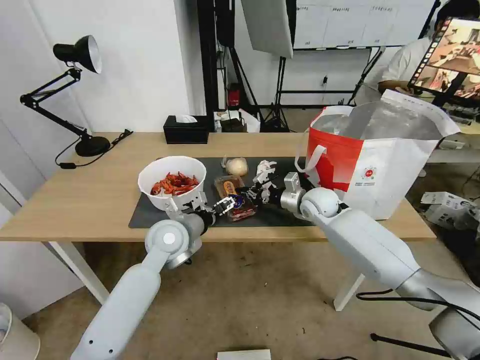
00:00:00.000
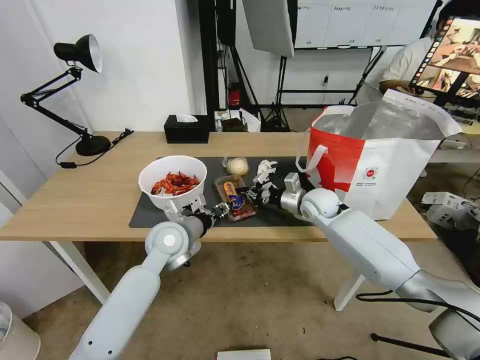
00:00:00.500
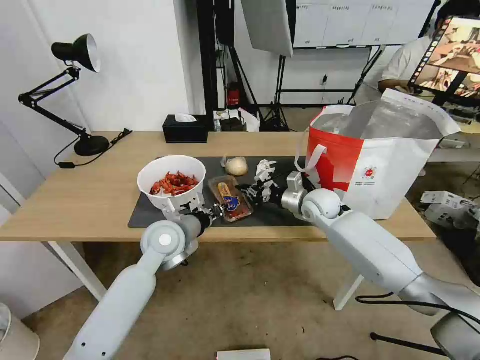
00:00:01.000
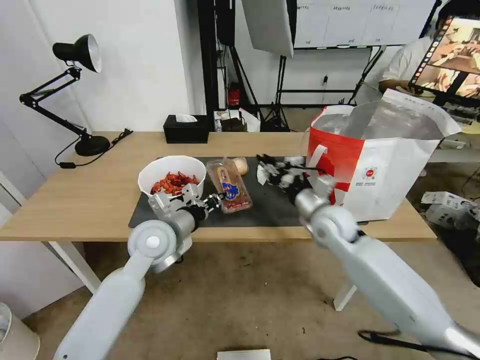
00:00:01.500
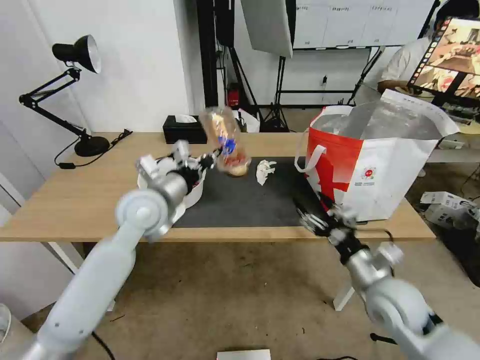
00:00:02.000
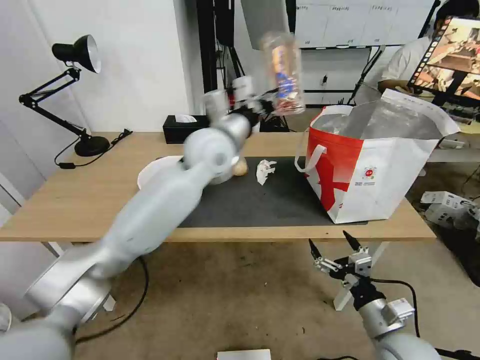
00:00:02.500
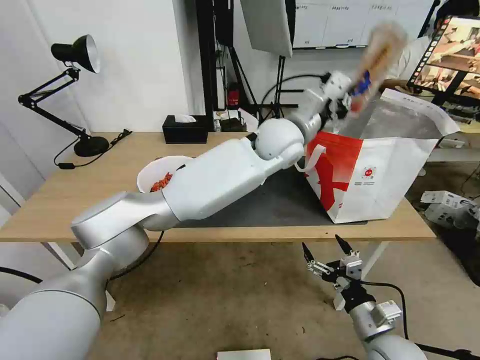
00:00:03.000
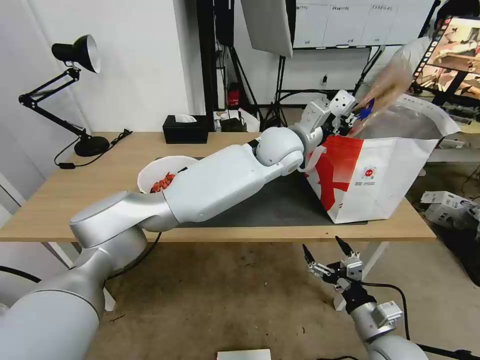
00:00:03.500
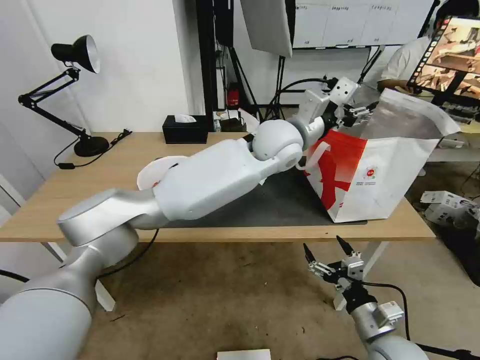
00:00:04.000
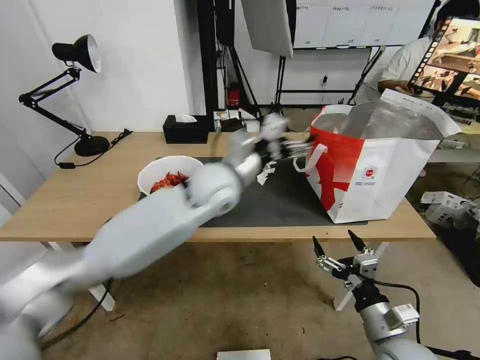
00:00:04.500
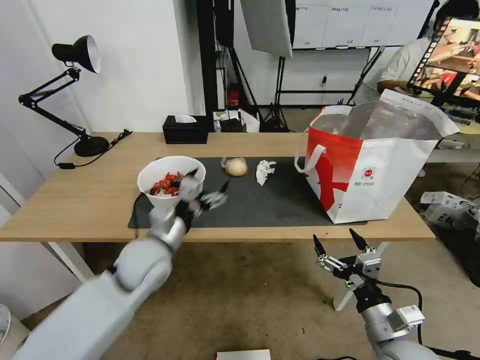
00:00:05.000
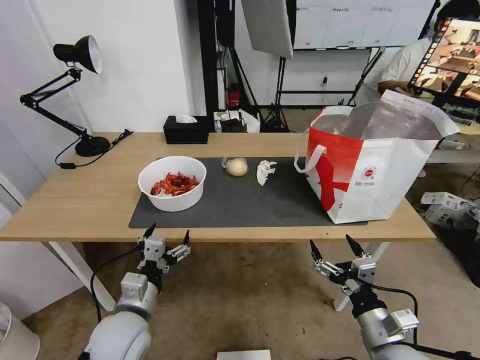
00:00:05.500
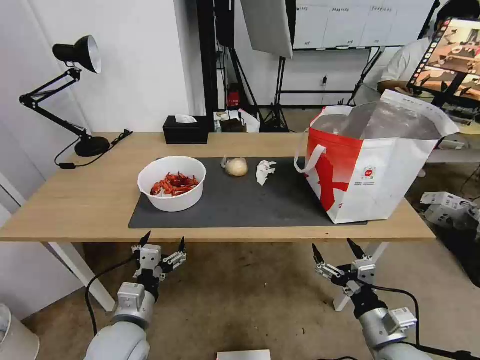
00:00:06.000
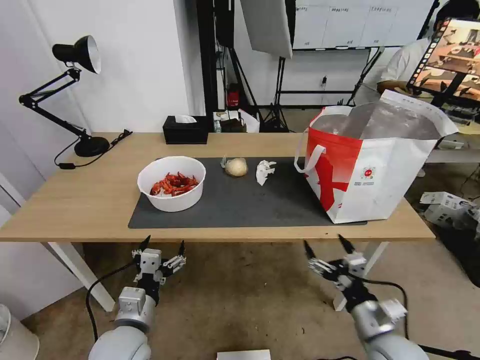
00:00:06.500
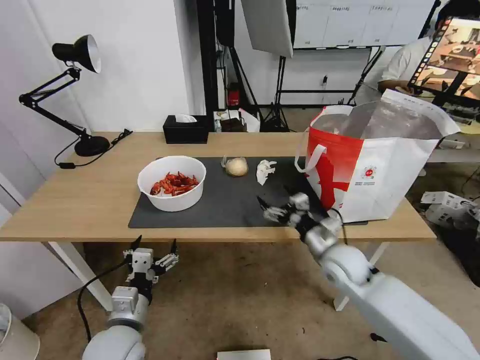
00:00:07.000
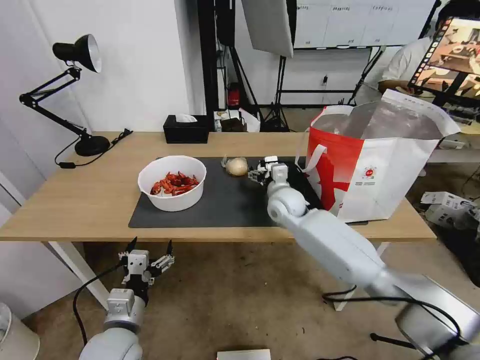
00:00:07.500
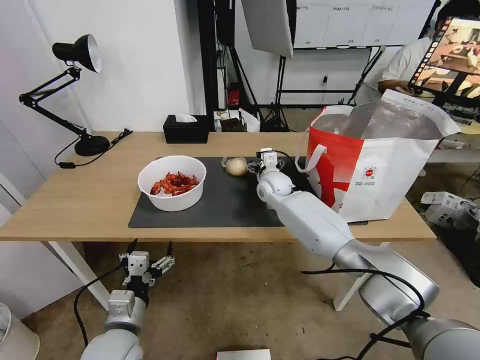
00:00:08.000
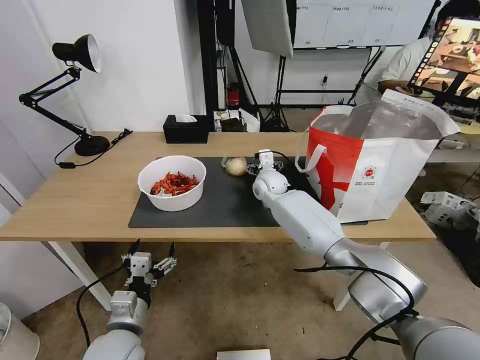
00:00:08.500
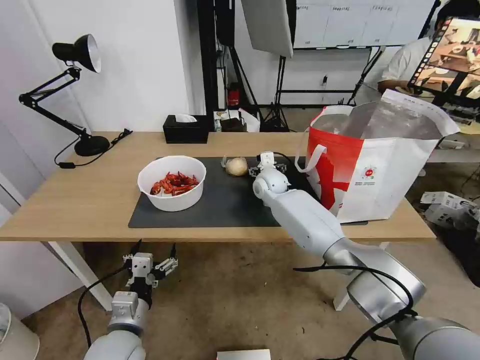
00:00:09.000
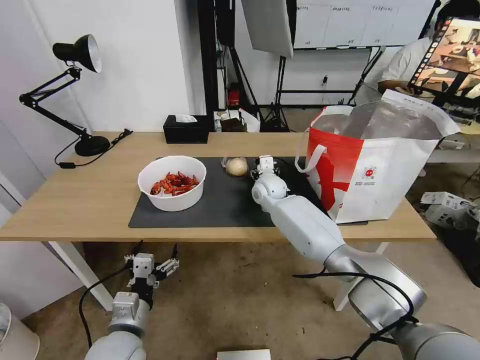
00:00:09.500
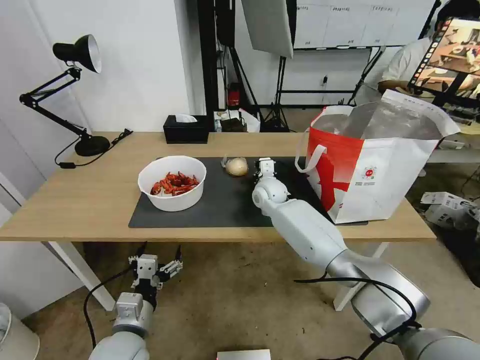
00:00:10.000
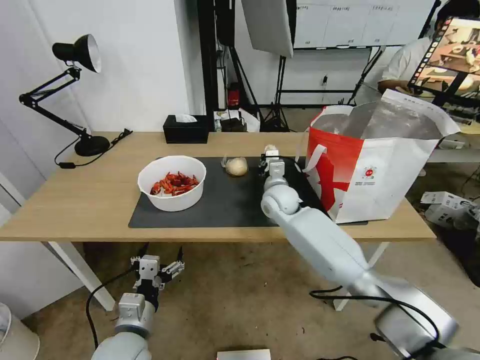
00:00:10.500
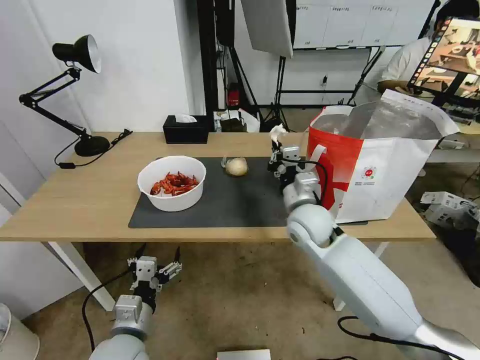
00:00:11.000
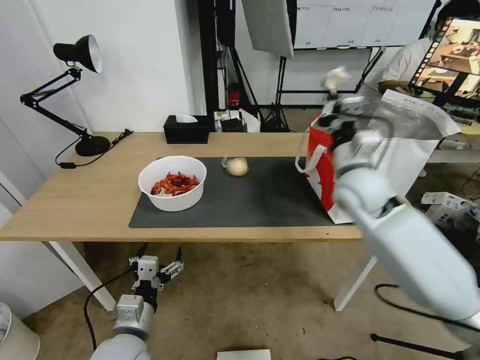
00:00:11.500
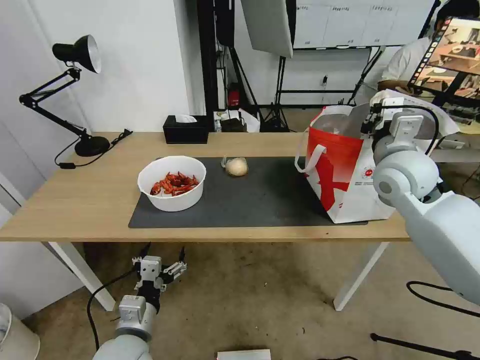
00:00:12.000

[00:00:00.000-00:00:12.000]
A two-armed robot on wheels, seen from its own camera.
Task of the whole recording: Pick up the trash from the table and place it into the takeout bag.
00:00:00.000 to 00:00:02.000: The left gripper goes approximately 10 cm upward, and closes its fingers, while the right gripper travels backward by about 25 cm, and opens.
00:00:02.000 to 00:00:04.000: The right gripper is displaced backward and downward by some 10 cm. The left gripper moves to the right, approximately 25 cm, and opens its fingers.
00:00:04.000 to 00:00:06.000: The left gripper travels backward, to the left and downward by roughly 50 cm.
00:00:06.000 to 00:00:08.000: The right gripper shifts about 50 cm forward and to the left.
00:00:08.000 to 00:00:10.000: The right gripper closes up.
00:00:10.000 to 00:00:12.000: The right gripper shifts roughly 30 cm to the right, upward and backward.

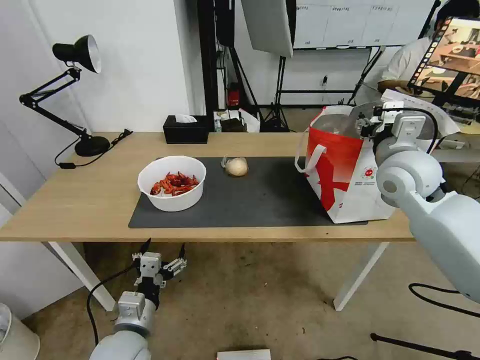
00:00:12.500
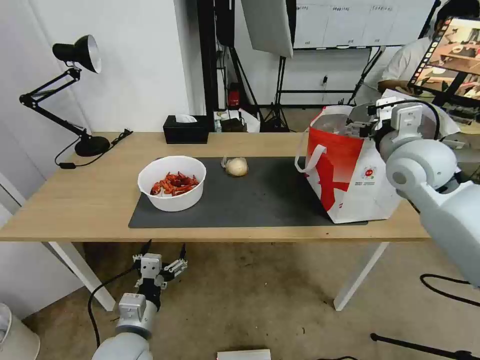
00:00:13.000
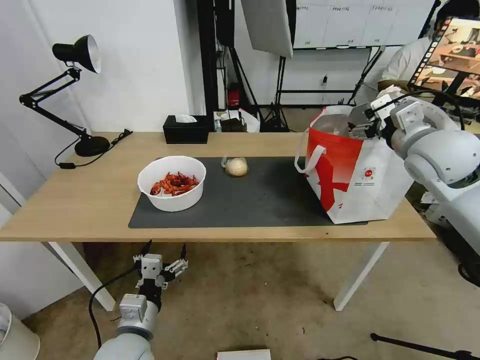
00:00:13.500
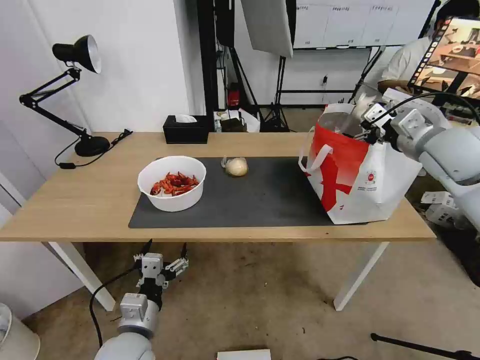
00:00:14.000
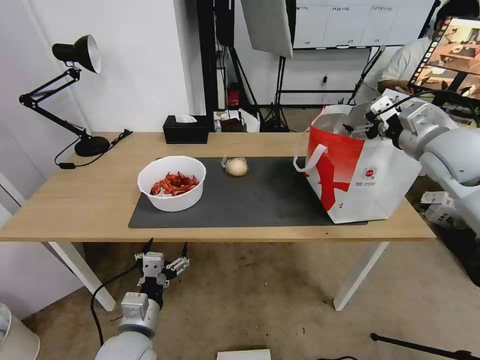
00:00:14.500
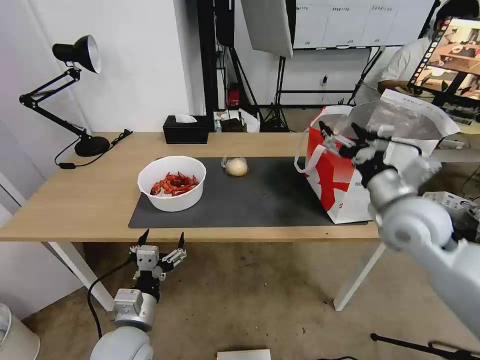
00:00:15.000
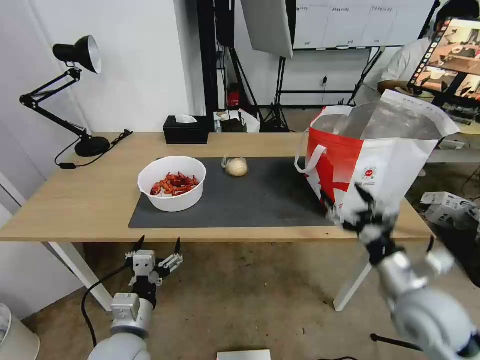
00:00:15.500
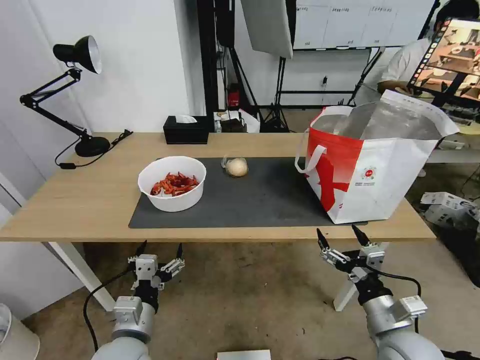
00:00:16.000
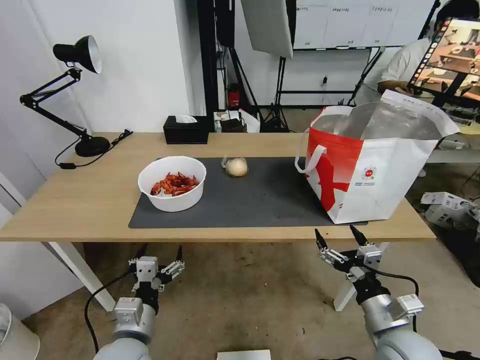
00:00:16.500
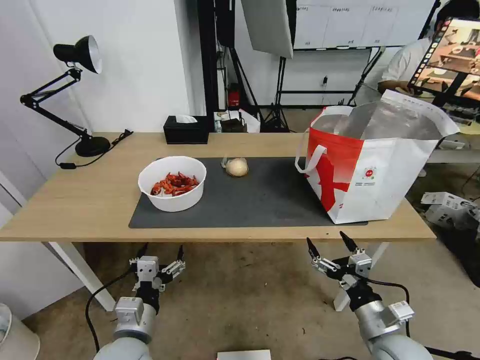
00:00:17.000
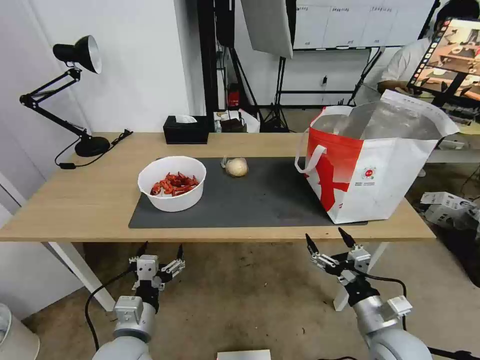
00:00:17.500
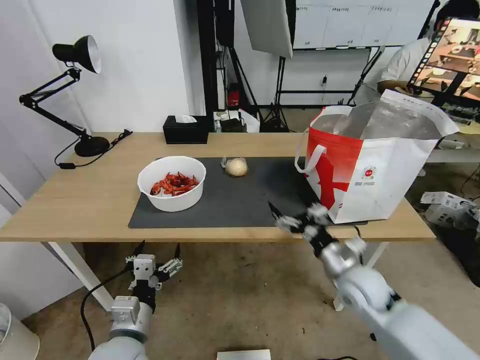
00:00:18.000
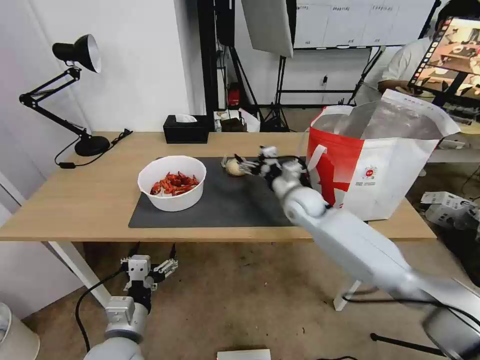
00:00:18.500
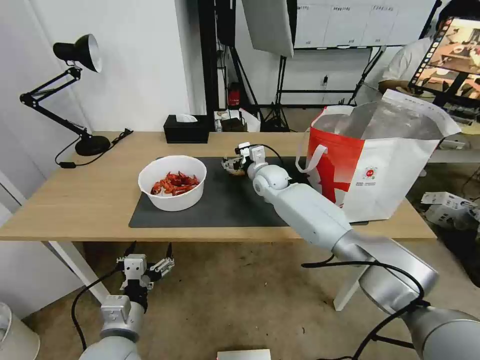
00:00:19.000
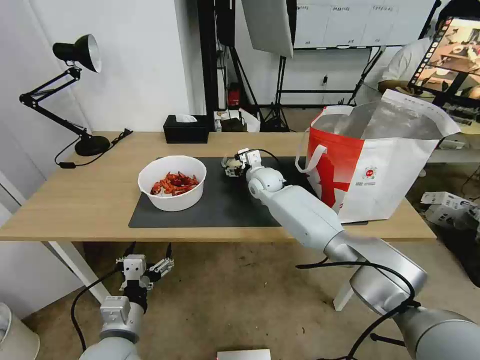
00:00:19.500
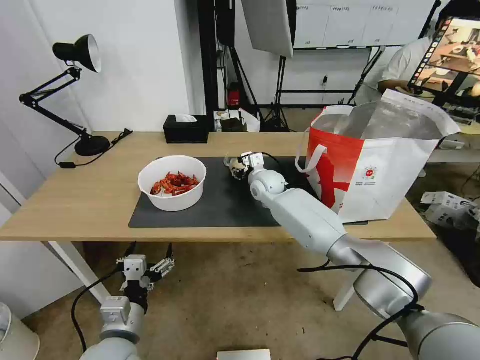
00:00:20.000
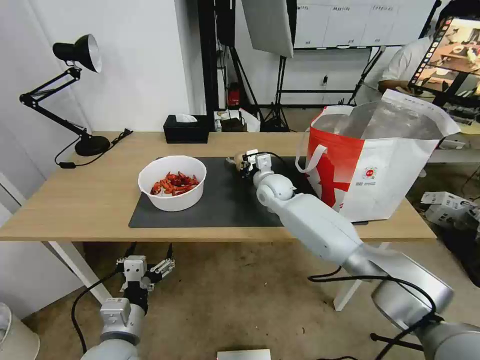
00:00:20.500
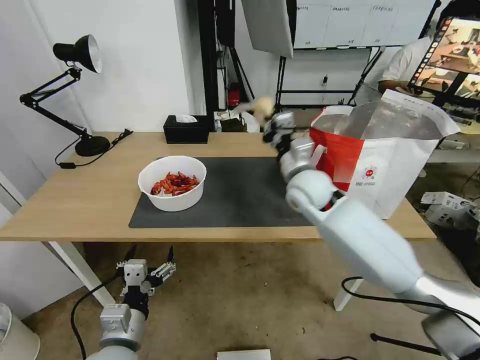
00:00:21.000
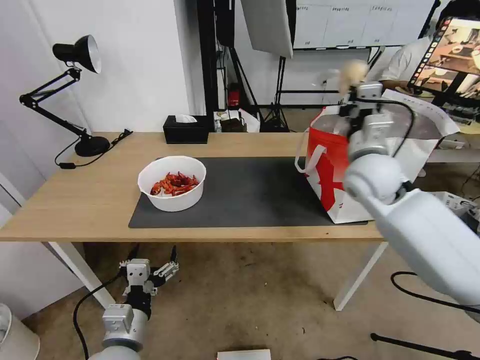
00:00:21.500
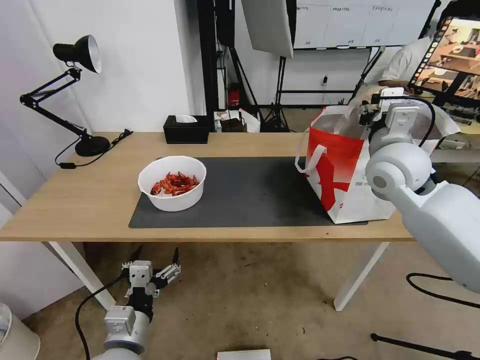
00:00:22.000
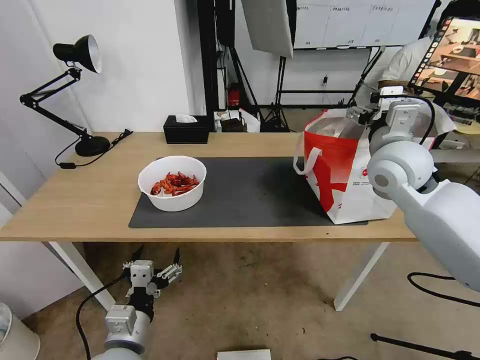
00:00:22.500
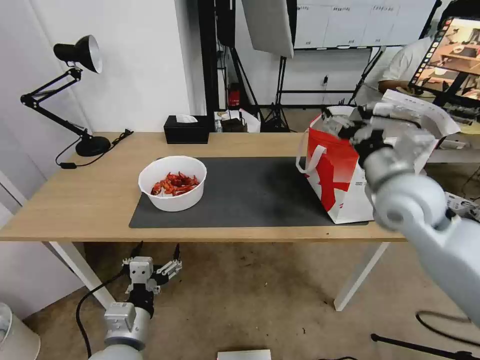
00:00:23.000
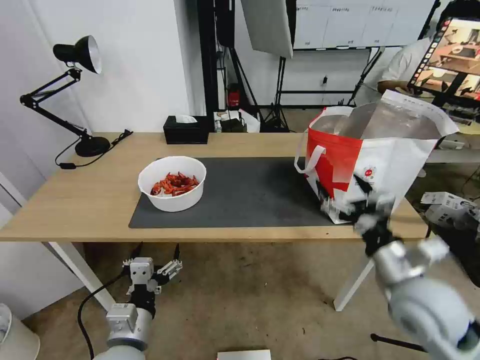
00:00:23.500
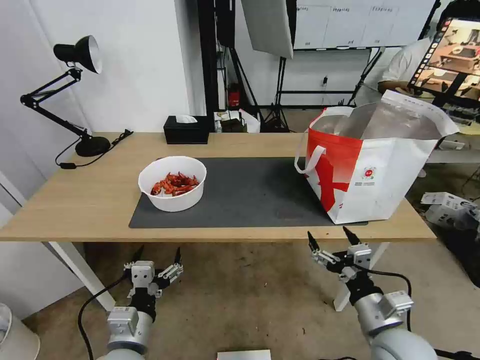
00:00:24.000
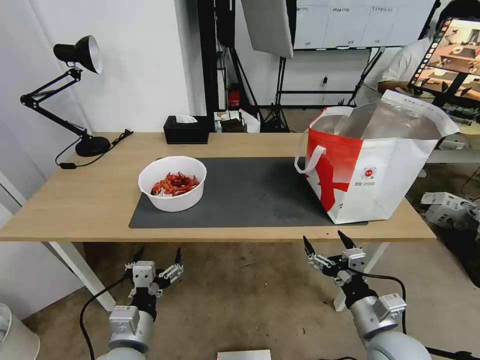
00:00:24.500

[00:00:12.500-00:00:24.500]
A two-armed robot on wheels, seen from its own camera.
Task of the whole recording: Pick up the trash from the table and place it into the takeout bag.
00:00:12.500 to 00:00:14.500: The right gripper moves to the right, some 5 cm, and opens.
00:00:14.500 to 00:00:16.500: The right gripper moves downward and backward, some 35 cm.
00:00:16.500 to 00:00:18.500: The right gripper travels forward and to the left by some 35 cm.
00:00:18.500 to 00:00:20.500: The right gripper goes roughly 10 cm to the left and forward, and closes.
00:00:20.500 to 00:00:22.500: The right gripper moves upward, to the right and backward, roughly 30 cm, and opens up.
00:00:22.500 to 00:00:24.500: The right gripper goes approximately 35 cm backward and downward.

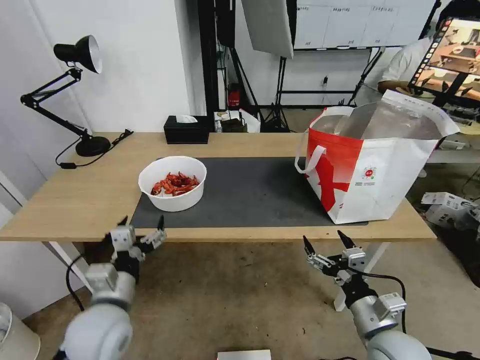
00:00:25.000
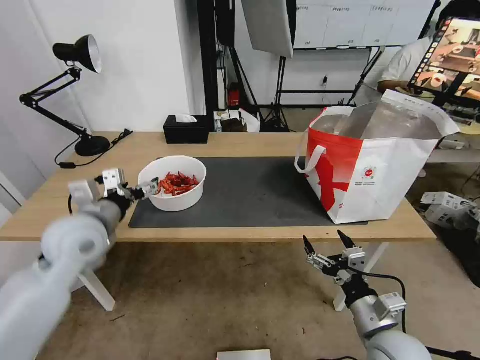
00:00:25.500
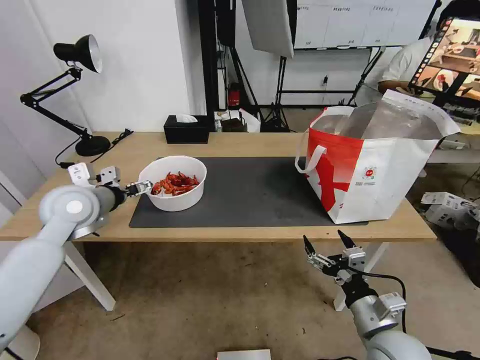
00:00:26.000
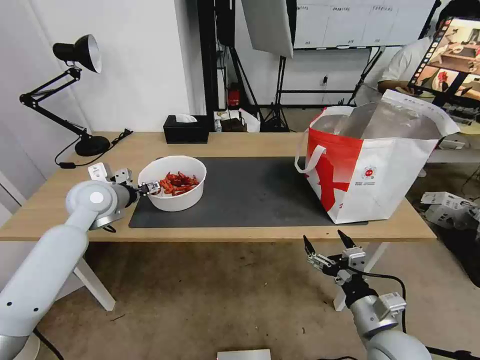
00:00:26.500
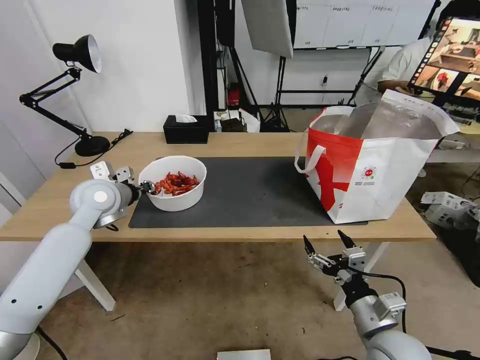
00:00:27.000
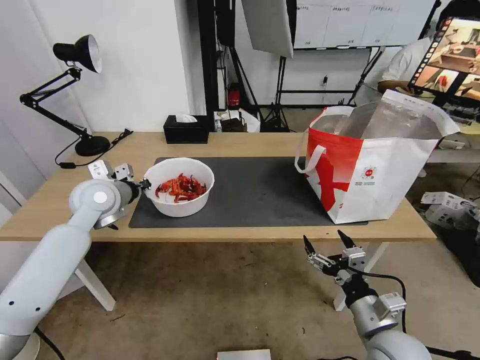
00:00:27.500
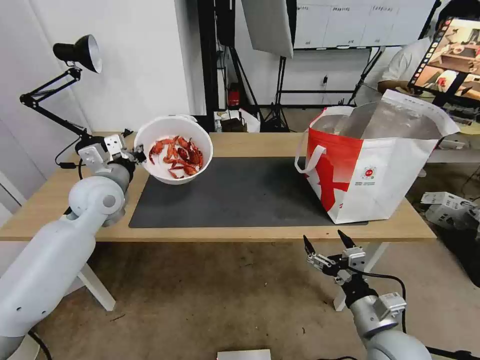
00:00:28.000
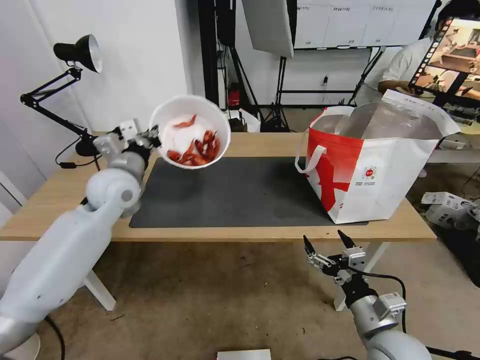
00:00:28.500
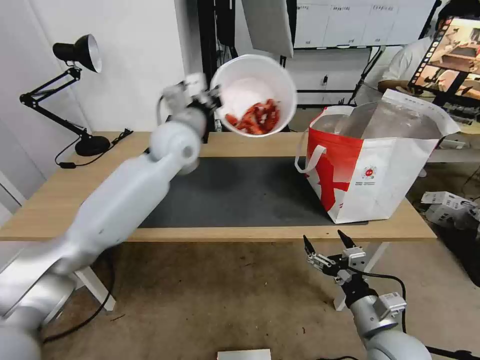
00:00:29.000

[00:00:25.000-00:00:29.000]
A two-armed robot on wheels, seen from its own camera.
Task of the whole recording: Pick up the trash from the table and place it into the takeout bag.
00:00:25.000 to 00:00:27.000: The left gripper travels forward and upward by approximately 25 cm, and closes up.
00:00:27.000 to 00:00:29.000: The left gripper travels to the right and upward by approximately 20 cm.
